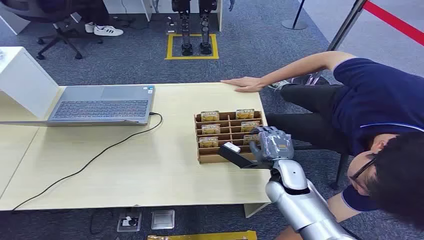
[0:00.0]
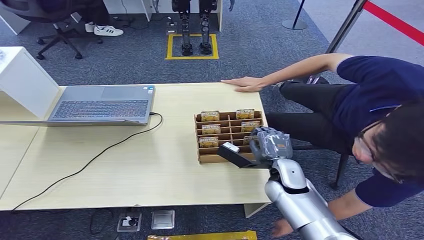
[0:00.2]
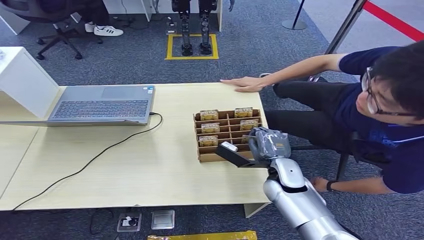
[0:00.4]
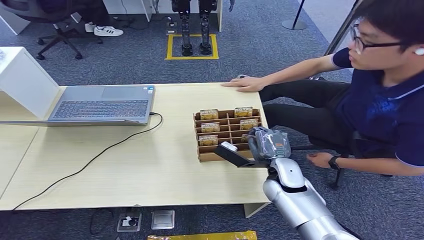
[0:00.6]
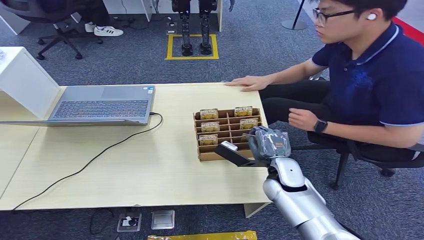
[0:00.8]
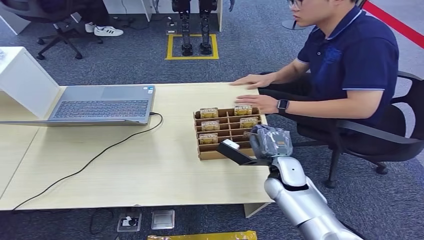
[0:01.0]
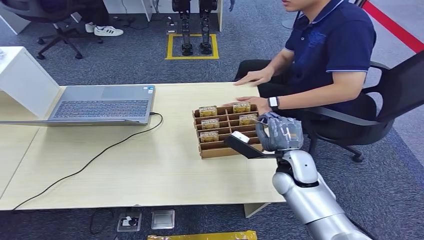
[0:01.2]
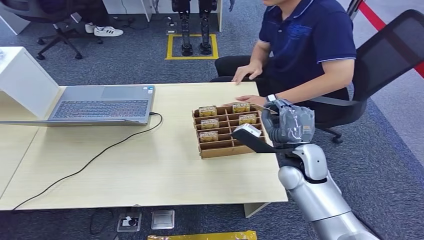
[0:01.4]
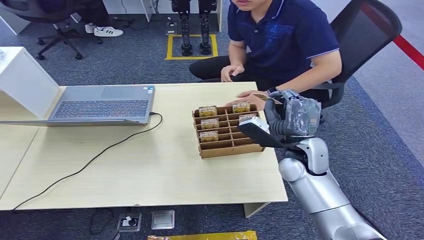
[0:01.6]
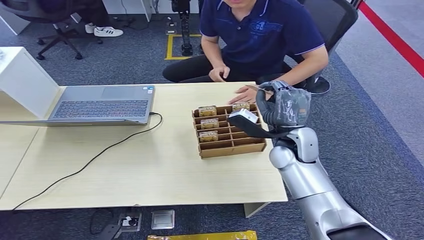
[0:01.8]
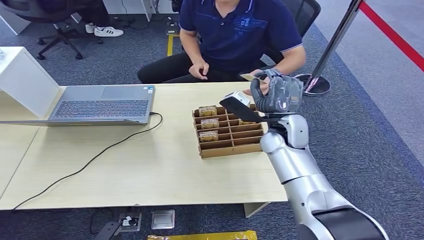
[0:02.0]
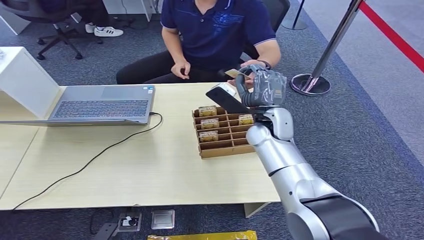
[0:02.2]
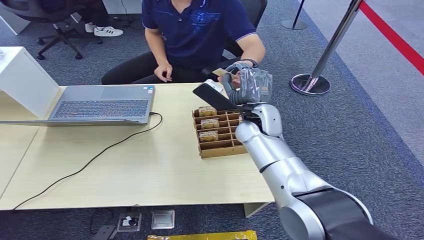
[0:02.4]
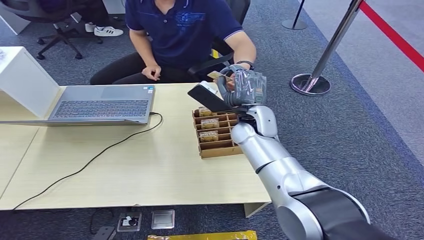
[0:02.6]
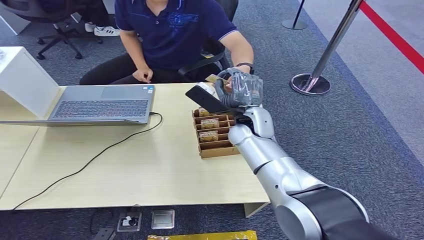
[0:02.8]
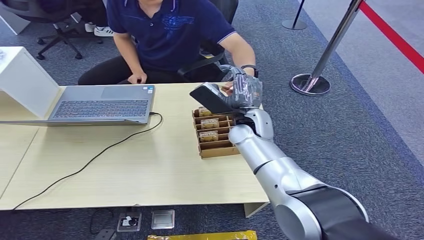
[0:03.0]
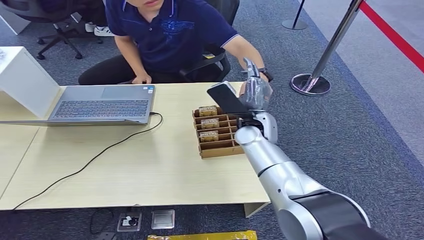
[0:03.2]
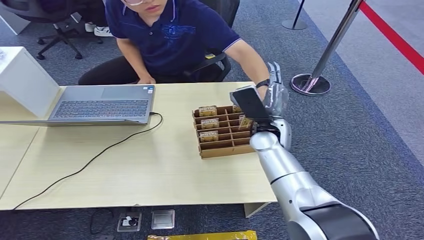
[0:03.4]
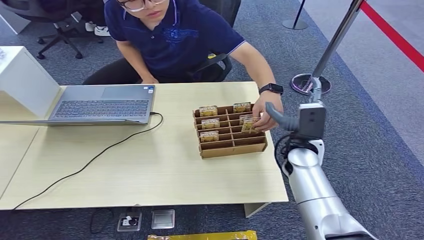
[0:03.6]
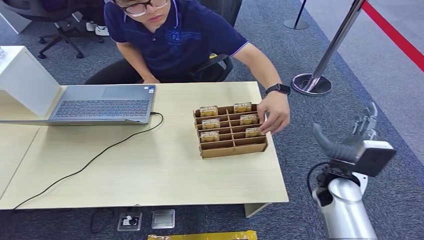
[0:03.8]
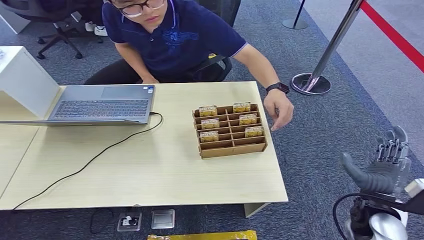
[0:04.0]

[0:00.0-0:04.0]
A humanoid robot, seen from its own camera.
Step, 0:00.0 to 0:01.8: Pick up the key card from the card box.
Step, 0:02.0 to 0:04.0: Hand the key card to the target.
0:02.6 to 0:04.0: The right hand travels backward, to the right and downward by roughly 35 cm.

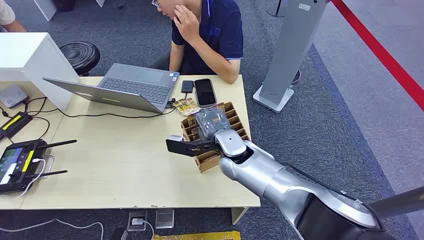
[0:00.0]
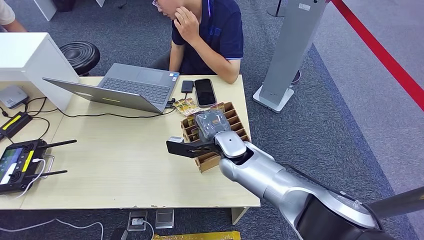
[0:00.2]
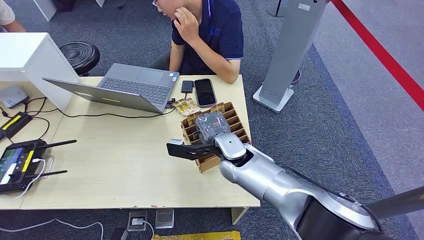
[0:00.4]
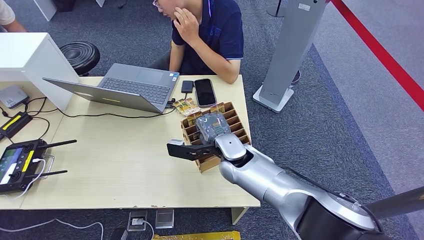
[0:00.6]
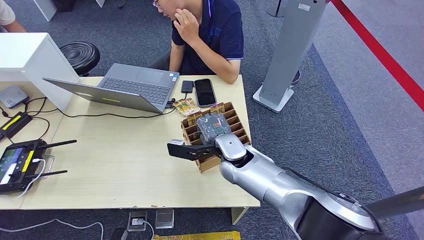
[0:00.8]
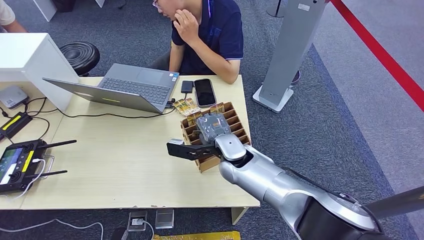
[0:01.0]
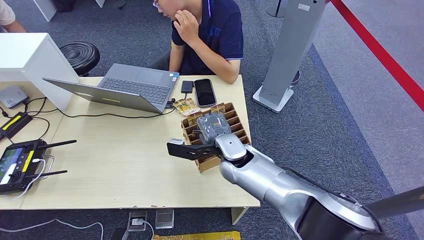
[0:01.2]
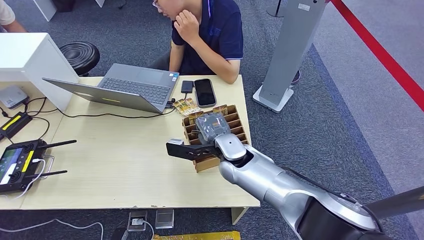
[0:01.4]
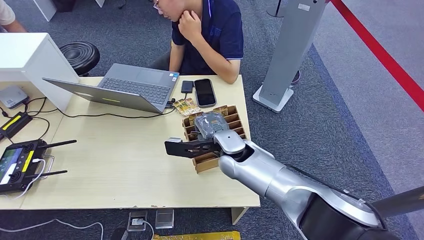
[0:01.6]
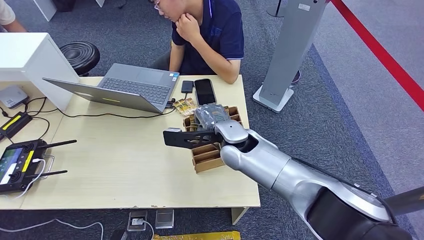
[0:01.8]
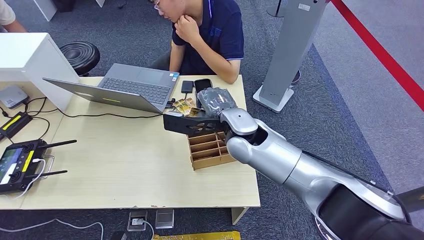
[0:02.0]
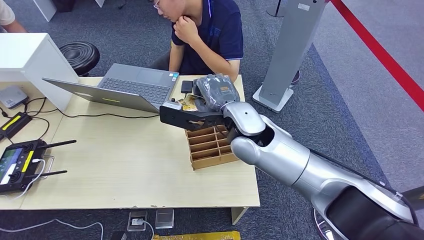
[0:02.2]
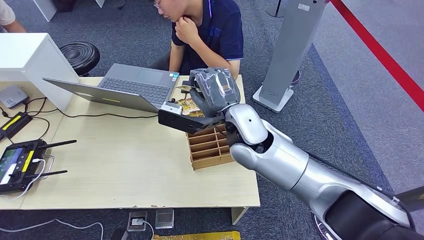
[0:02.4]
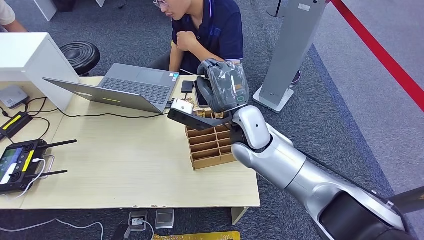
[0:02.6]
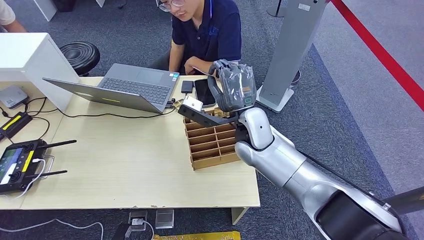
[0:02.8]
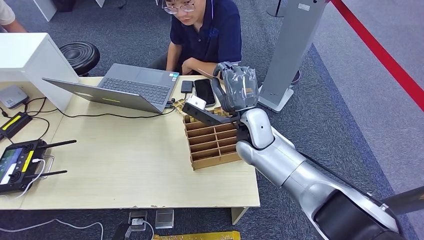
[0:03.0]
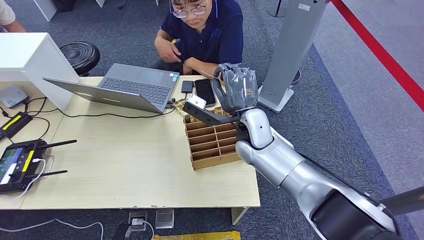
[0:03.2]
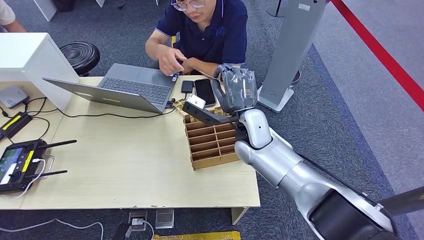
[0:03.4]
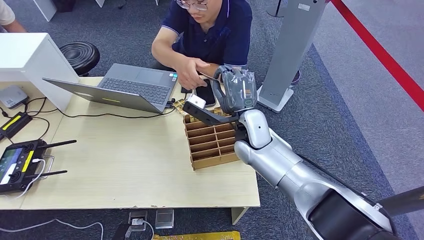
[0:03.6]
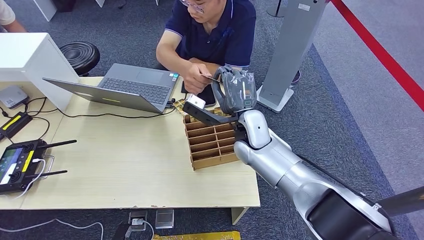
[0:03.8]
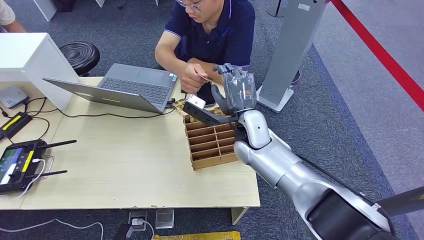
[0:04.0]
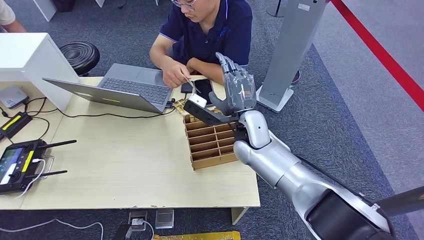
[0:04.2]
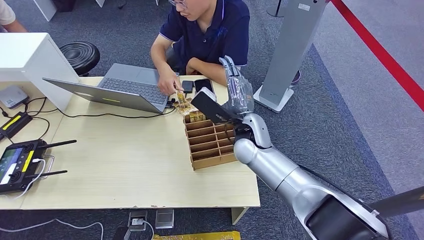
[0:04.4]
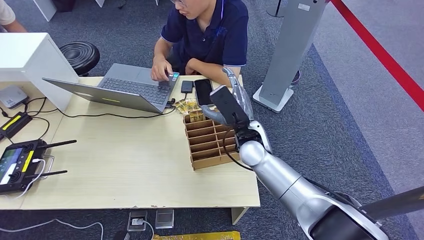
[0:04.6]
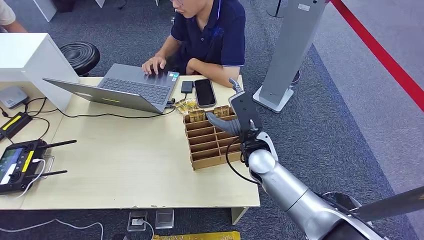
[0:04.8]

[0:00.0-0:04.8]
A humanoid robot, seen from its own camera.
Step, 0:00.0 to 0:02.2: Pick up the key card from the card box.
Step, 0:02.8 to 0:04.6: Hand the key card to the target.
0:03.2 to 0:04.8: The right hand changes place by approximately 5 cm.
